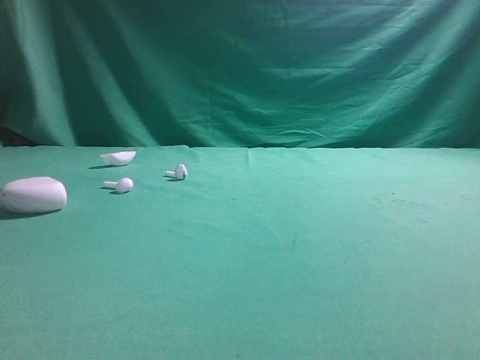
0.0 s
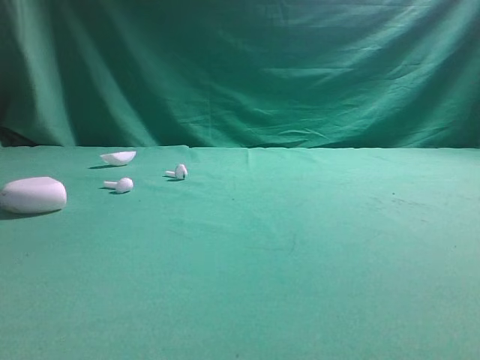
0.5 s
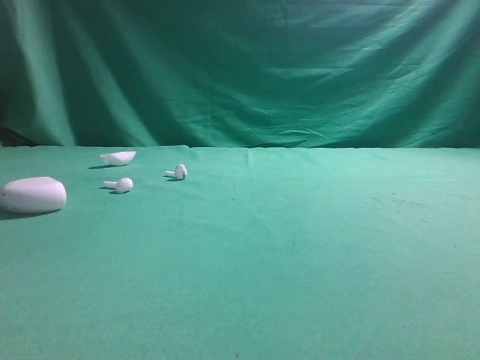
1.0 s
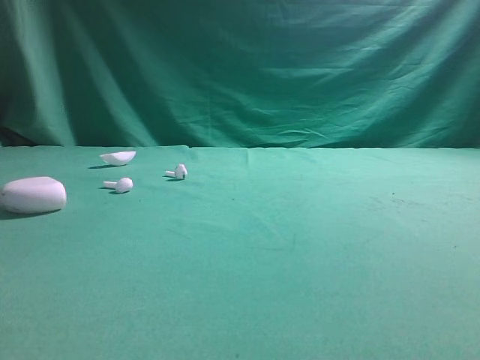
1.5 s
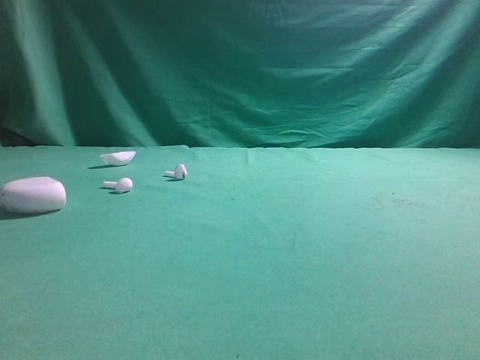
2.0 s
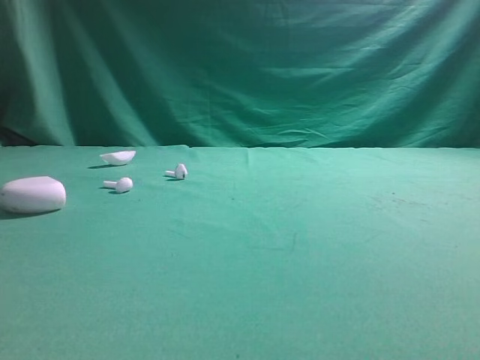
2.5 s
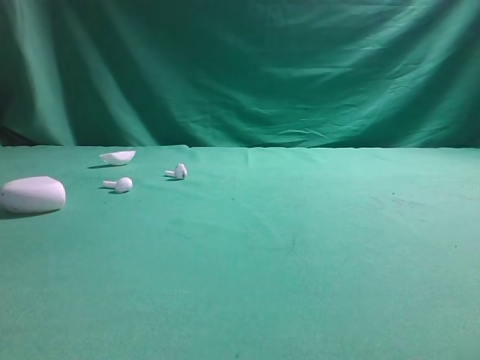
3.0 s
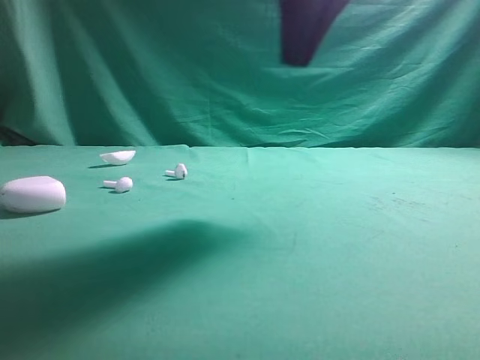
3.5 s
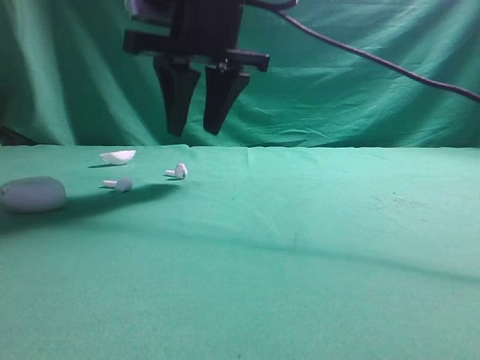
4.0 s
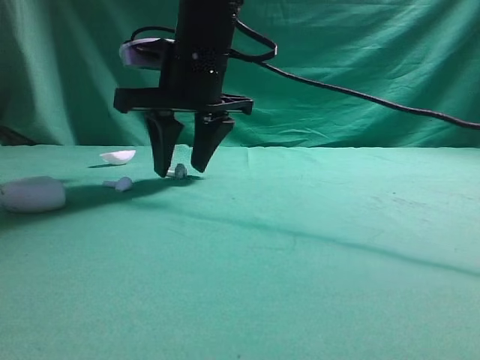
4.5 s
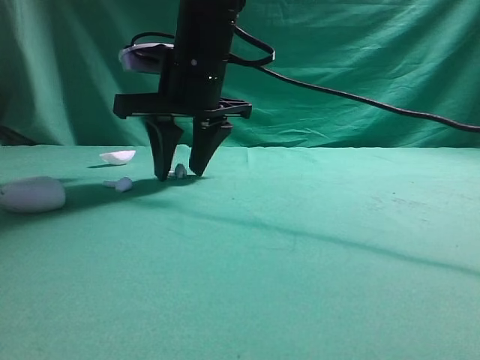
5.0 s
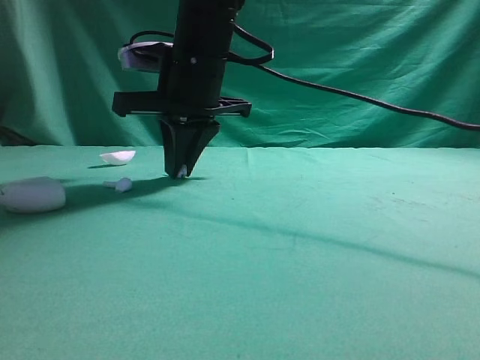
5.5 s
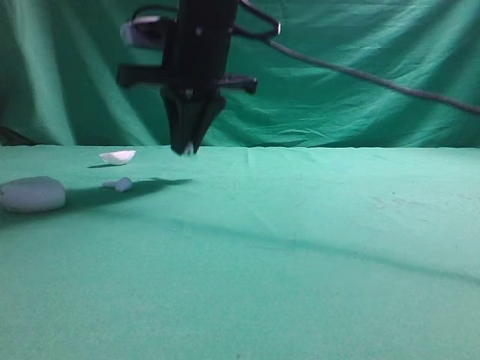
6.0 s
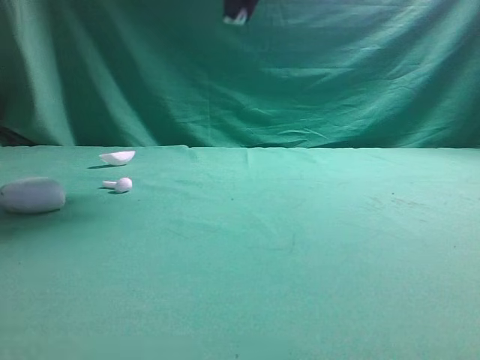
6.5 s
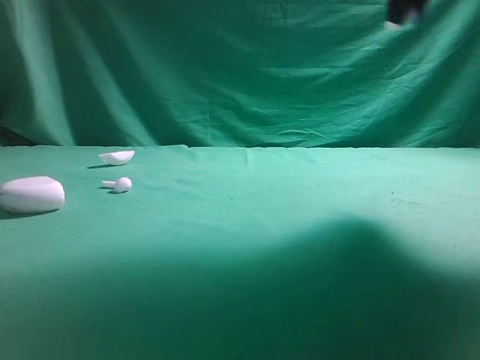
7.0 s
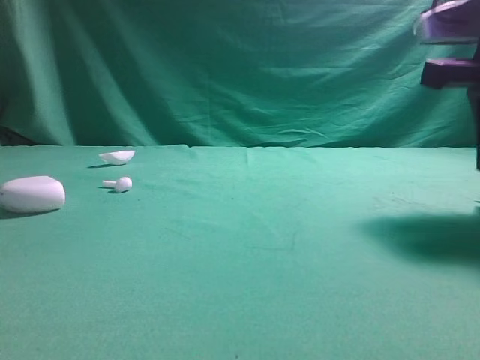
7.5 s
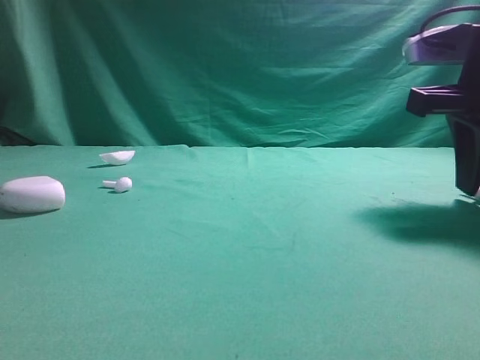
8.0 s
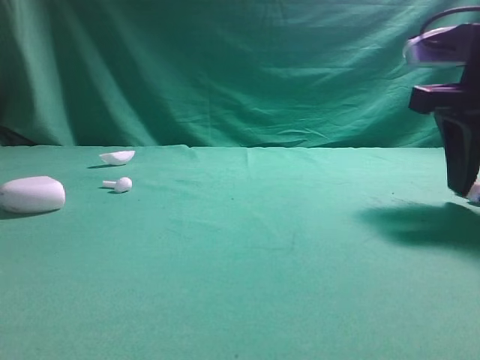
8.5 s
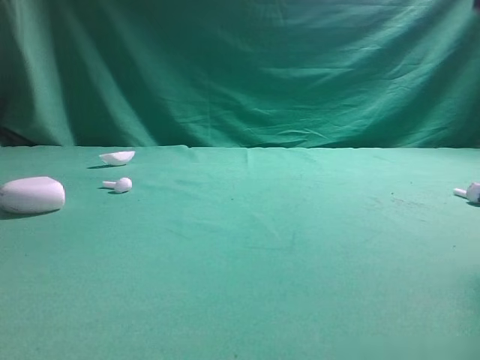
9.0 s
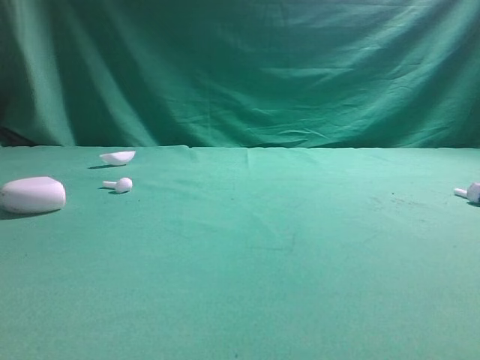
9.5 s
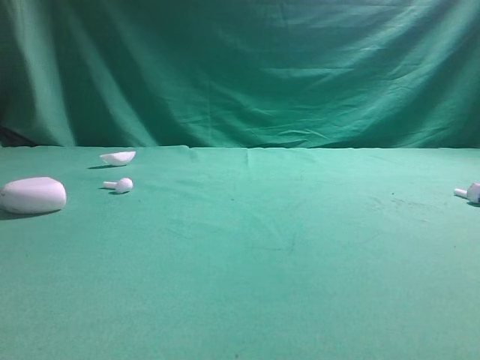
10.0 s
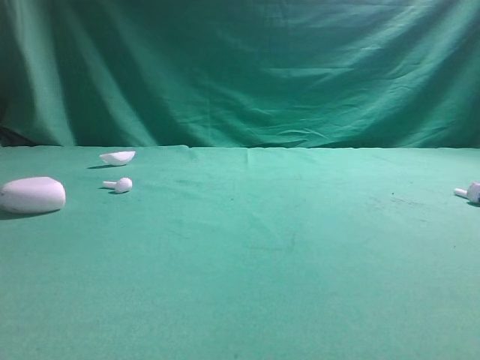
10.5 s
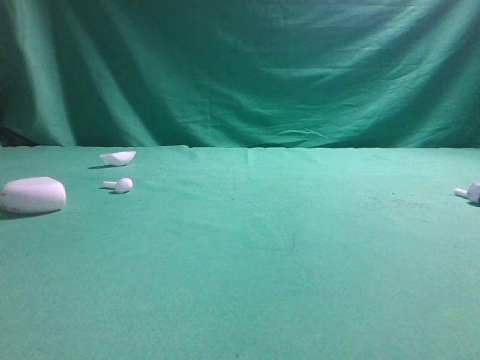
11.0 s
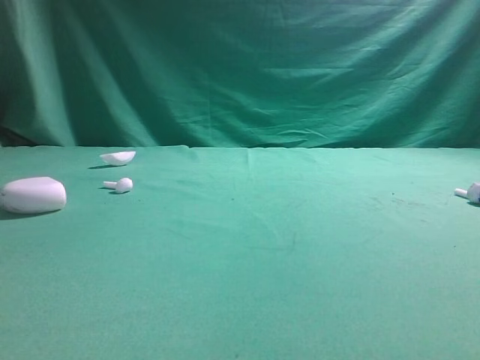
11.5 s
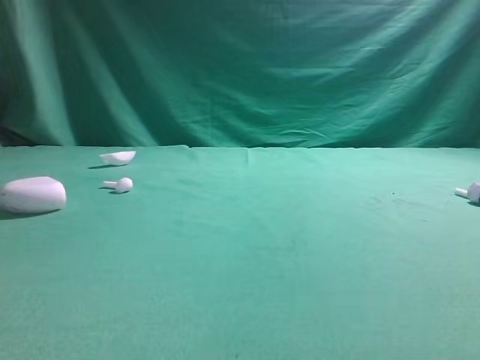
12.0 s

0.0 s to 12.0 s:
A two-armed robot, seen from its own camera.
Step, 0.0 to 6.0 s: Grasp the Bluetooth earbud.
Step, 6.5 to 8.5 s: Place bluetooth earbud on the right side of the table.

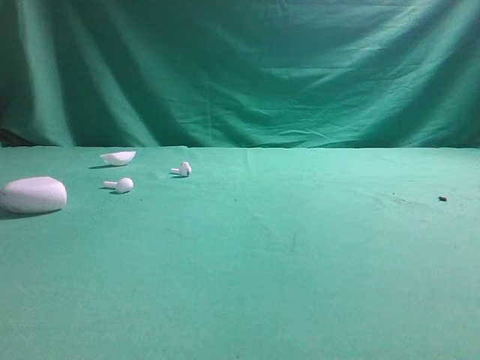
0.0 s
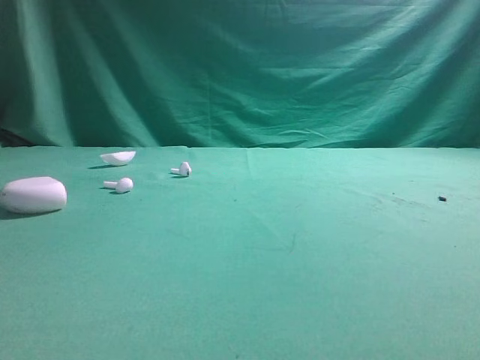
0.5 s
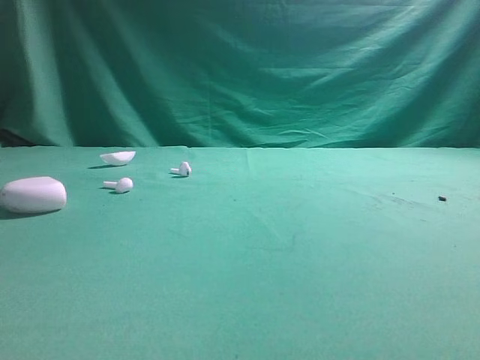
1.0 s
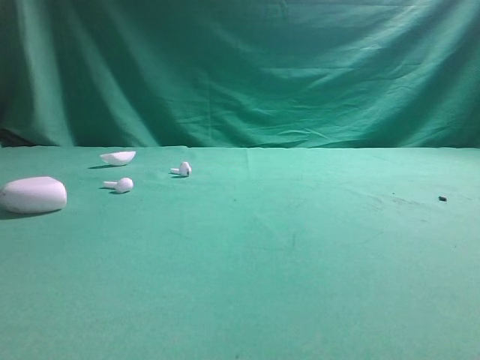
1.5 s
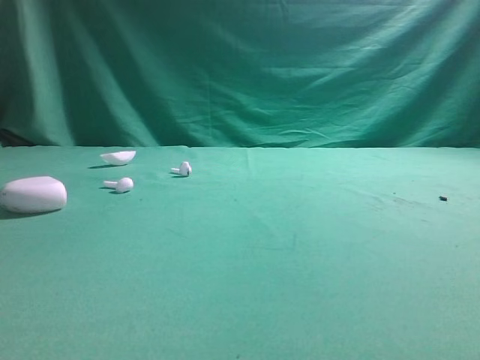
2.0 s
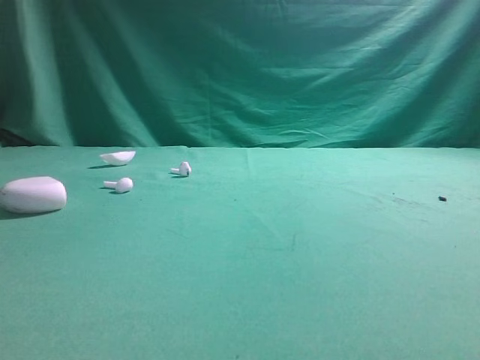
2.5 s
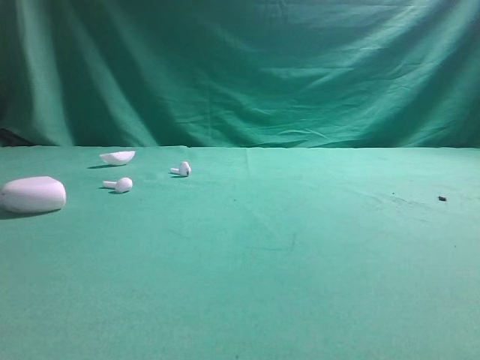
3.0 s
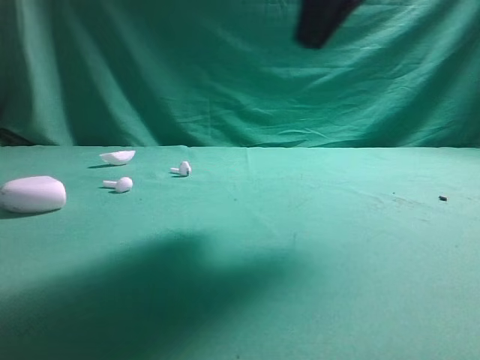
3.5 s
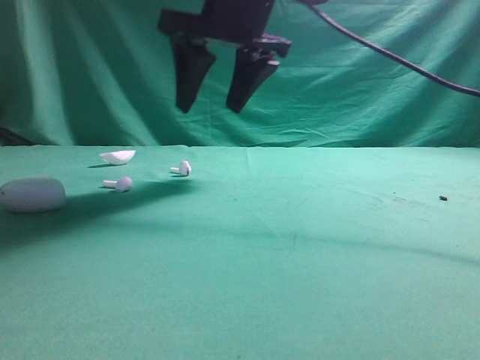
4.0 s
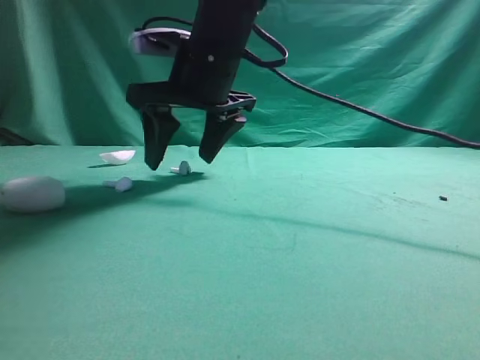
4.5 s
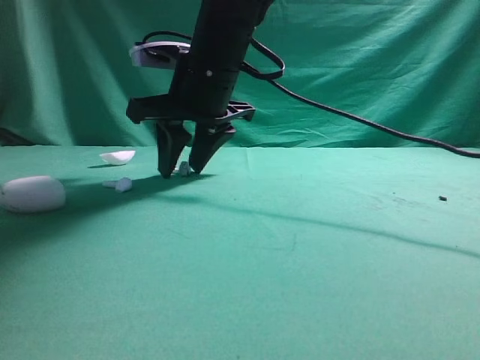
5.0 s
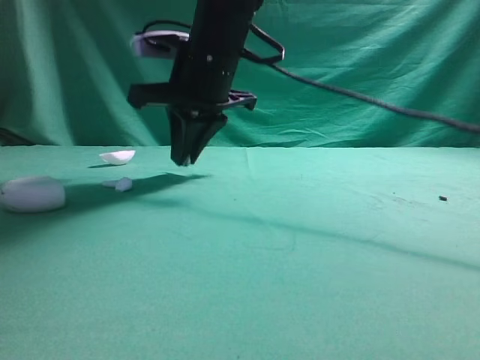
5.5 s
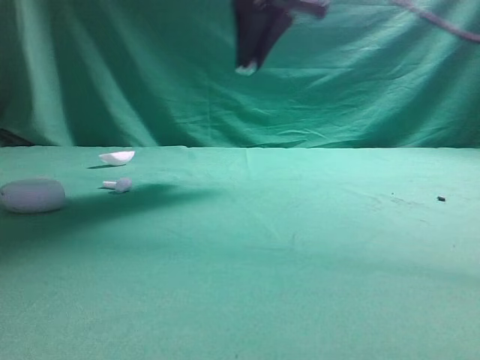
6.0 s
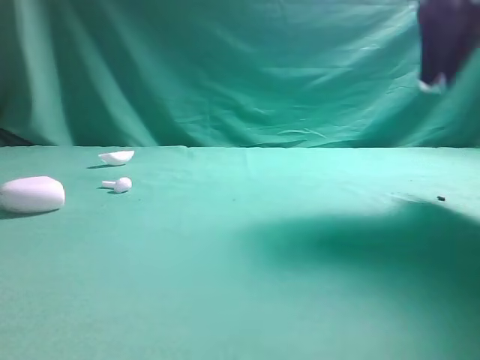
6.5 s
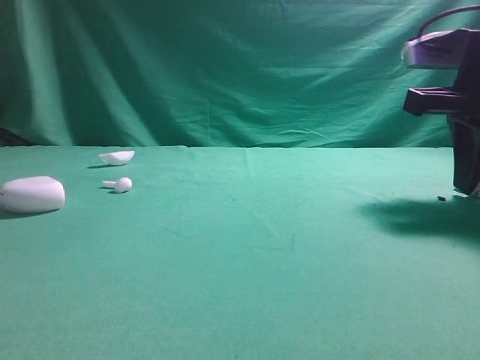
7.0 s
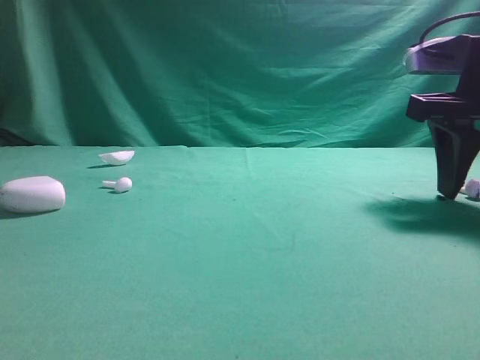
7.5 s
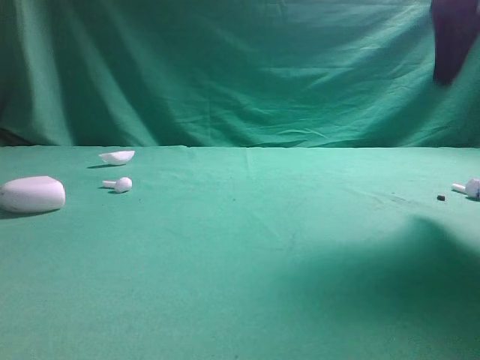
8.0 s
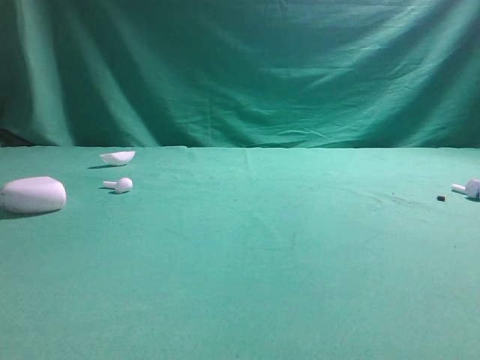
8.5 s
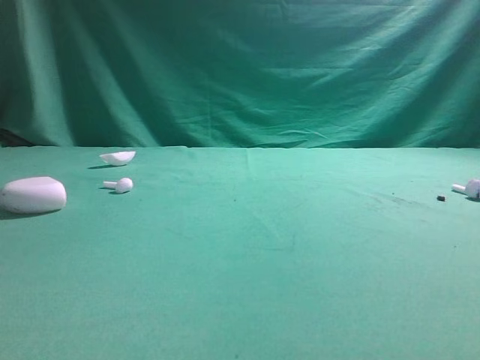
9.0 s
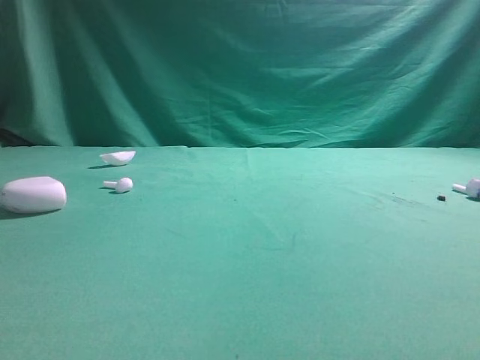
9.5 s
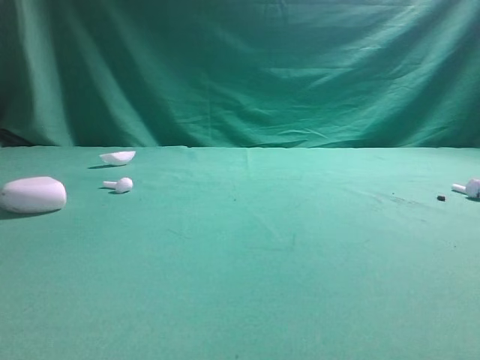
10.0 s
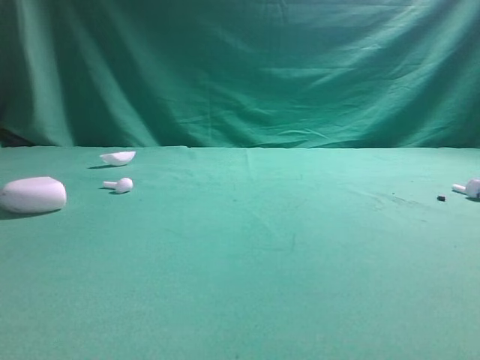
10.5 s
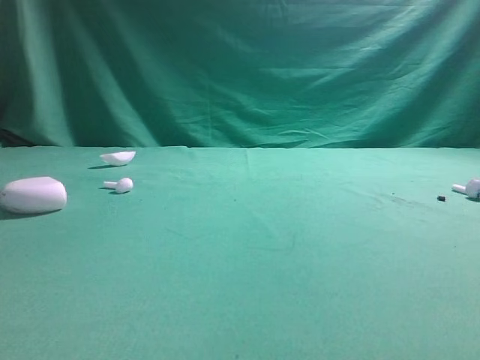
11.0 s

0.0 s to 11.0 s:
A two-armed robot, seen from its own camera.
Step, 0.0 to 5.0 s: Grasp the Bluetooth earbud.
Step, 5.5 to 7.5 s: Place bluetooth earbud on the right side of the table.

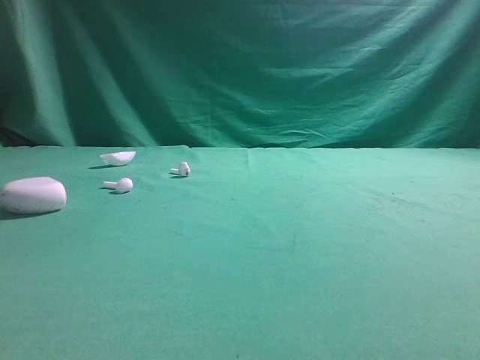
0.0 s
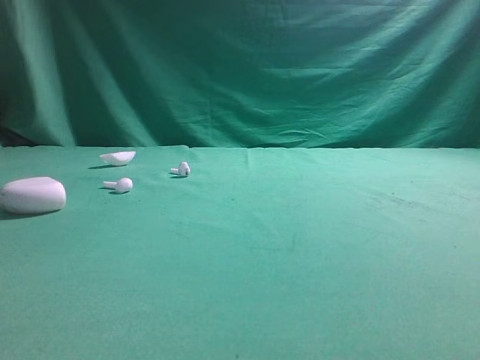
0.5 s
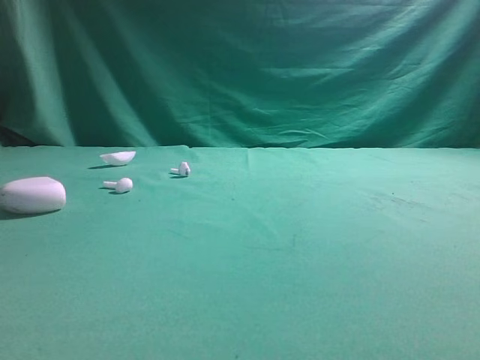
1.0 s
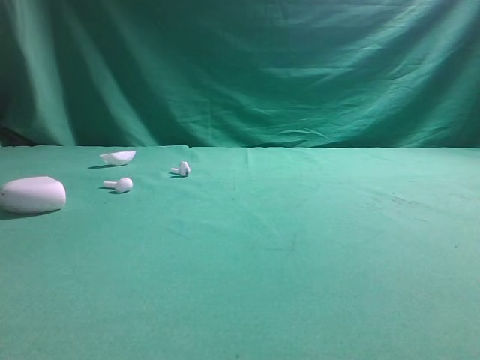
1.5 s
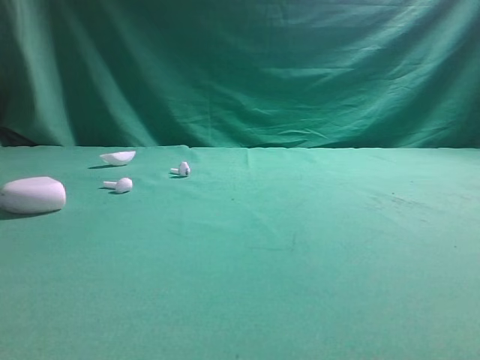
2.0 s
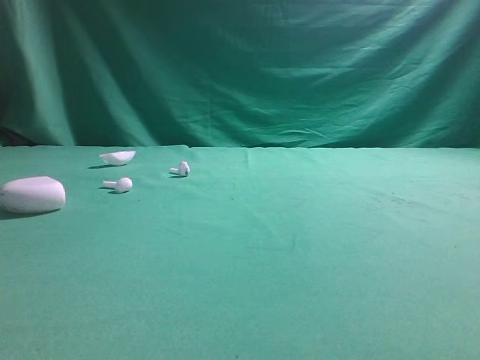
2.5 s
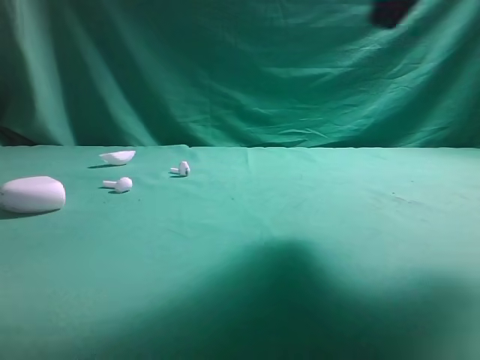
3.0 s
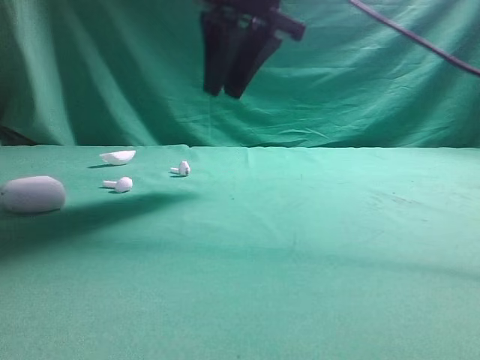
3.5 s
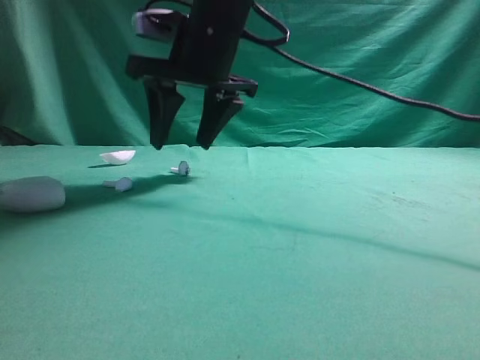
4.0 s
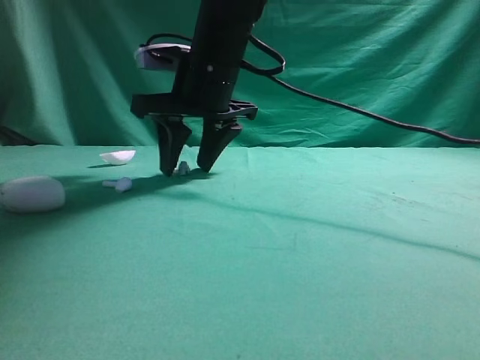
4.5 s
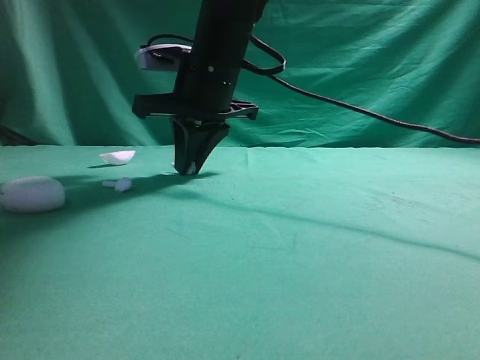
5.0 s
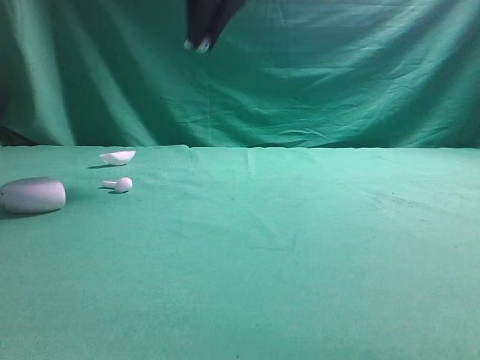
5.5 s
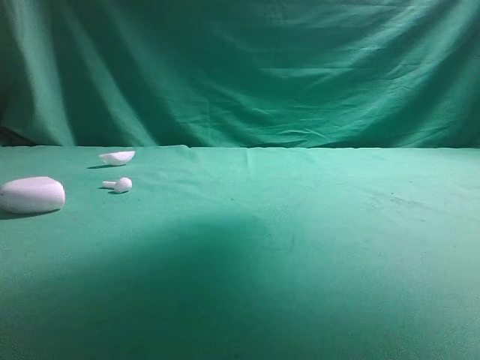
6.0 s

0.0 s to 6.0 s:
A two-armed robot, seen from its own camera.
Step, 0.0 to 5.0 s: Grasp the Bluetooth earbud.
